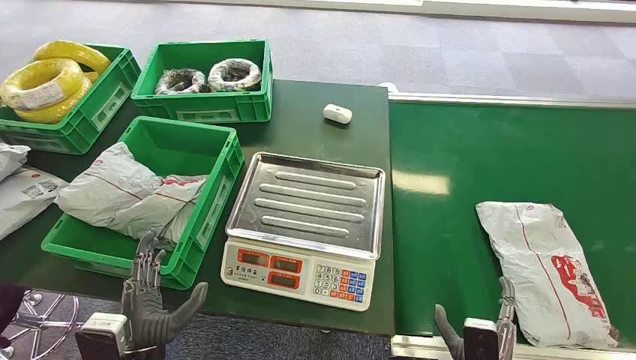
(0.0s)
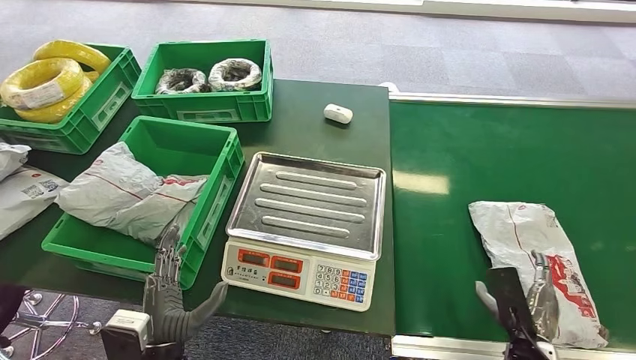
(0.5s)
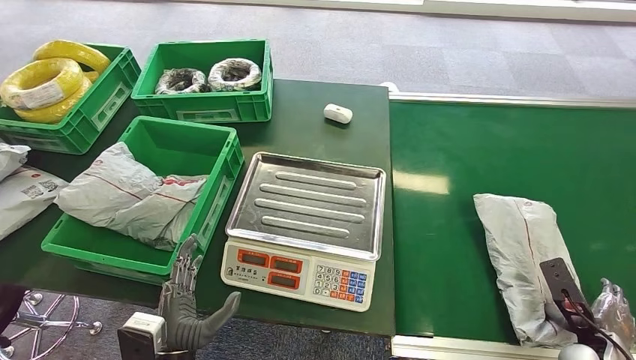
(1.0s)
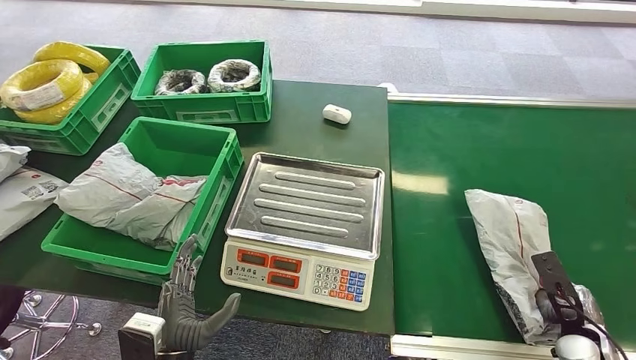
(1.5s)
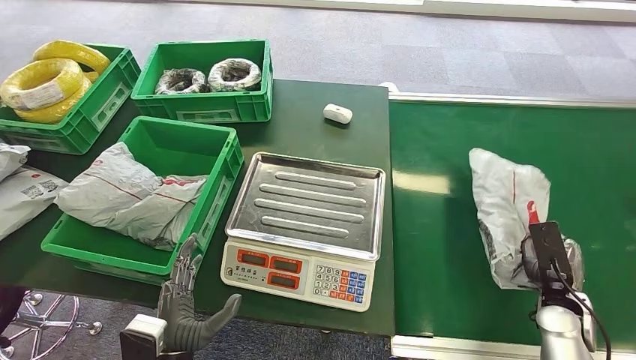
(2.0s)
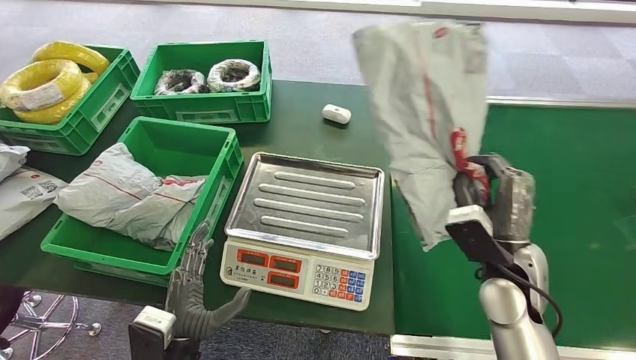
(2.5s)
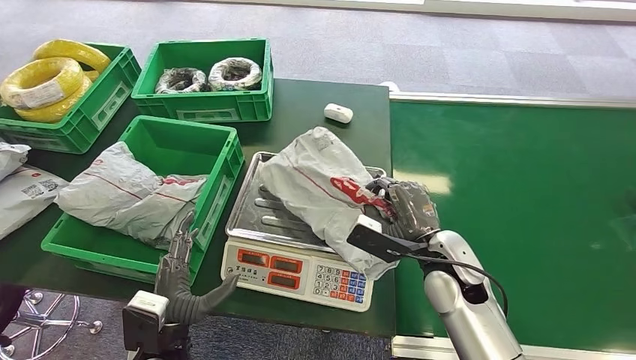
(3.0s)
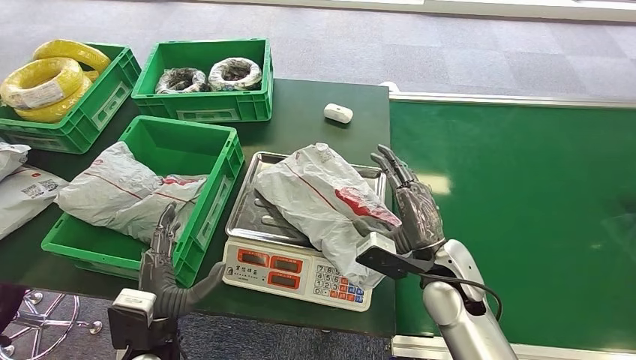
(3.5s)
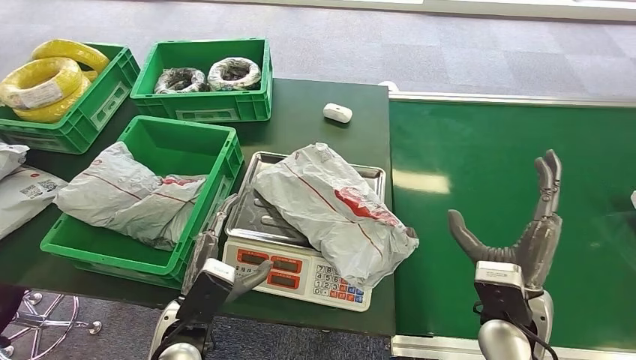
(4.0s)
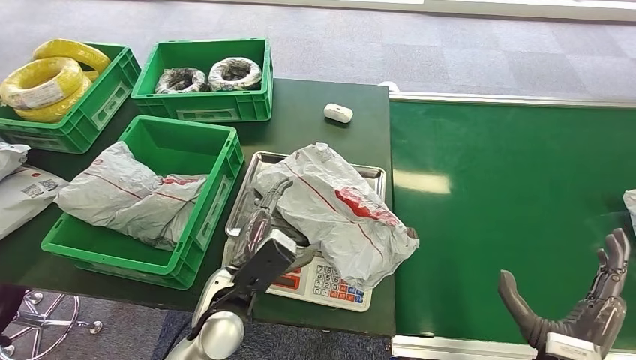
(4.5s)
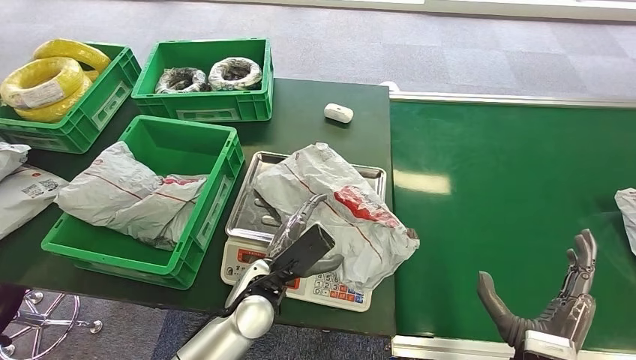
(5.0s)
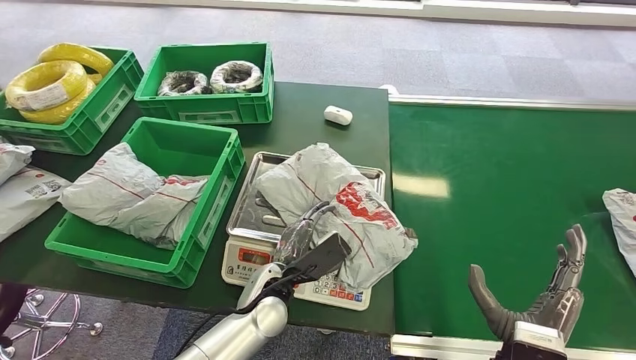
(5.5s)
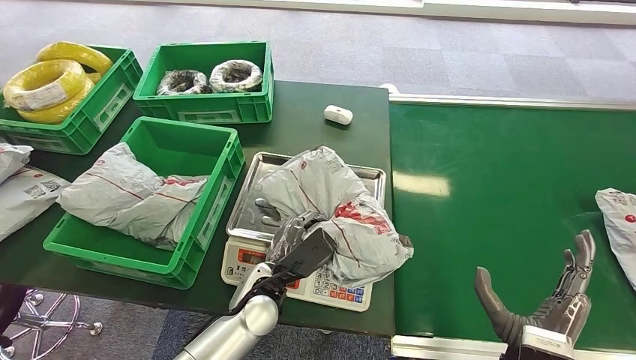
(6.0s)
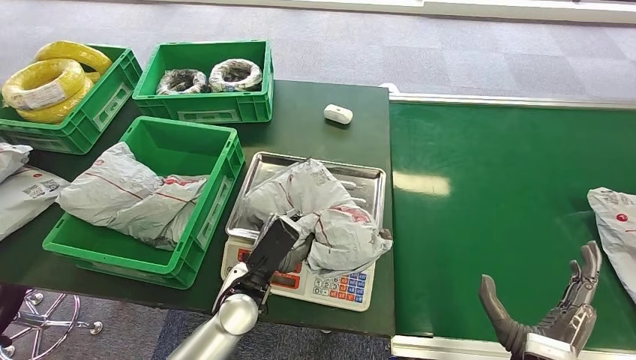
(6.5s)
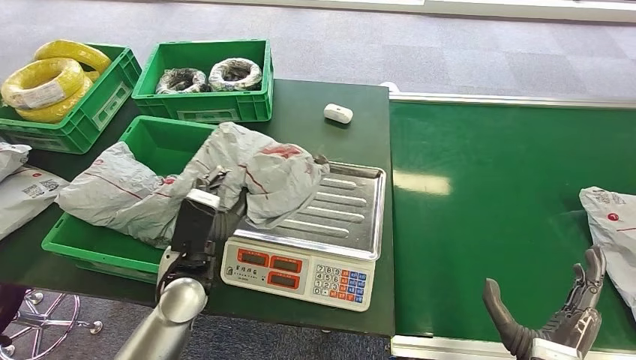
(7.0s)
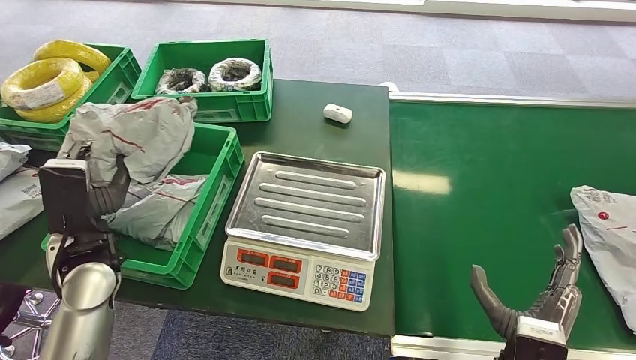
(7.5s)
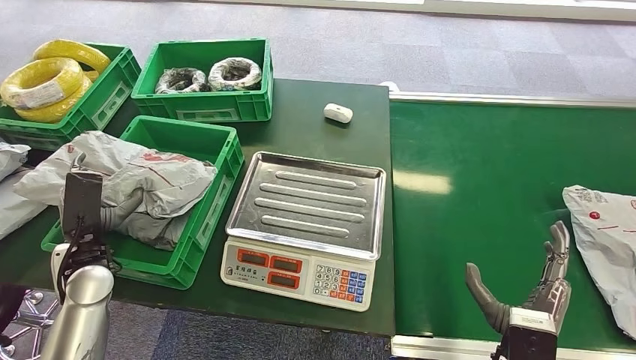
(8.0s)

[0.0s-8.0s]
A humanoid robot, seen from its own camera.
Step, 0.0s to 2.0s: Pick up the package from the conveyor belt.
Step, 2.5s to 3.5s: Place the package onto the inbound machine.
Step, 4.0s to 7.0s: Pick up the package from the inbound machine.
Step, 7.5s to 8.0s: Place the package into the parcel locker.
